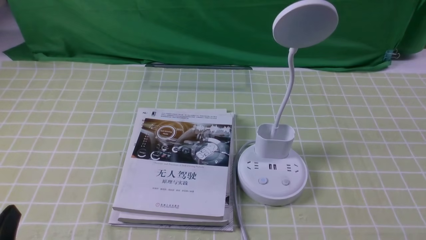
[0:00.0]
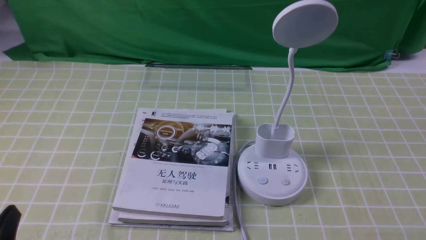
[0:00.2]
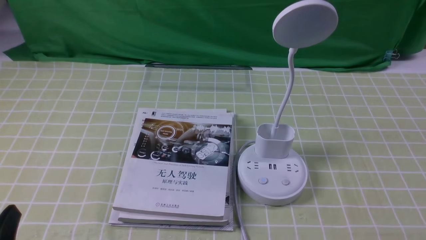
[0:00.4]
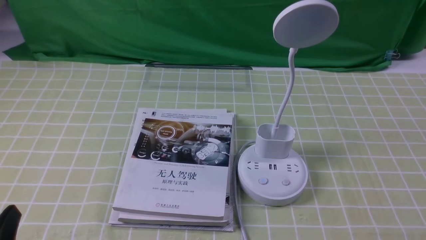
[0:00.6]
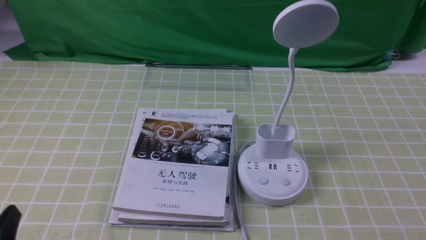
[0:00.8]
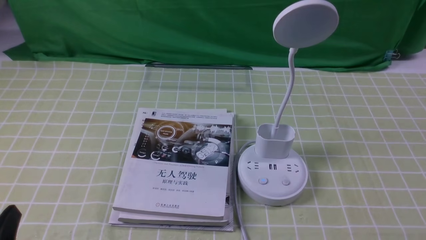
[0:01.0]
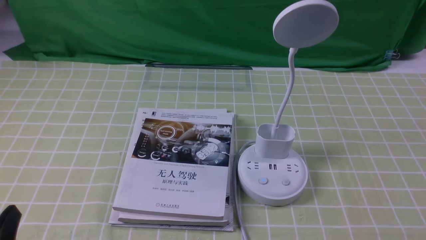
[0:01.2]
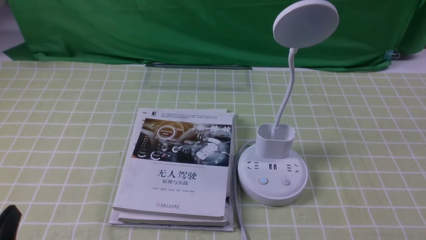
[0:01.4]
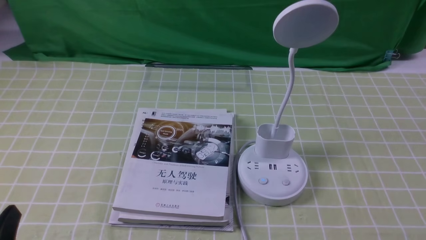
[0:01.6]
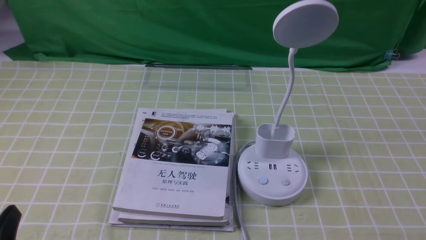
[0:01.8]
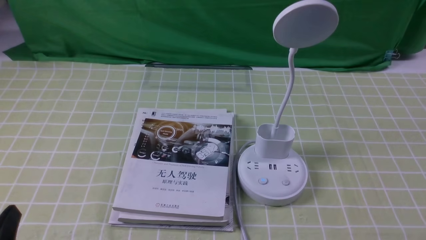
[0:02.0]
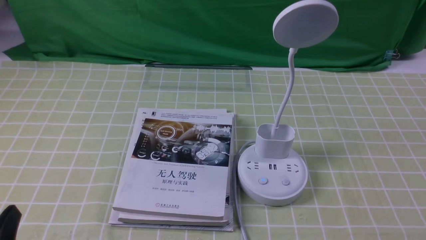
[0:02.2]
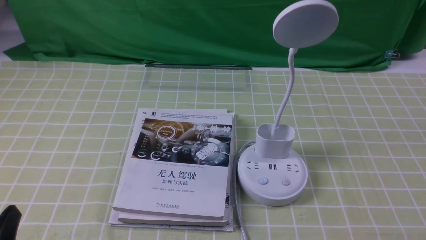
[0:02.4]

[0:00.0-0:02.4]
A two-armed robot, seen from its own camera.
Task of the whole recording: turn off the desk lamp on the green coffee tablecloth by hand.
0:01.2 to 0:02.4: Neither gripper changes place.
